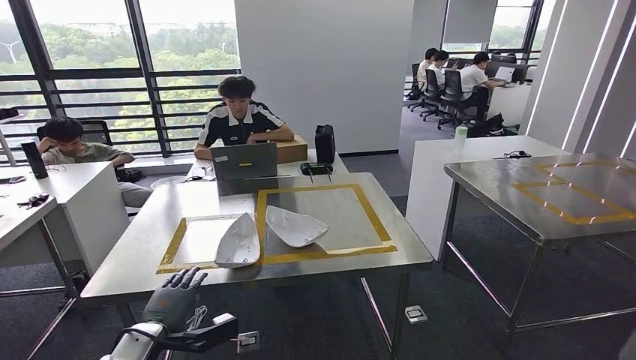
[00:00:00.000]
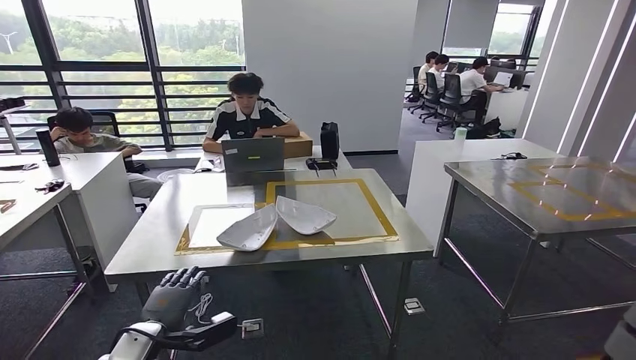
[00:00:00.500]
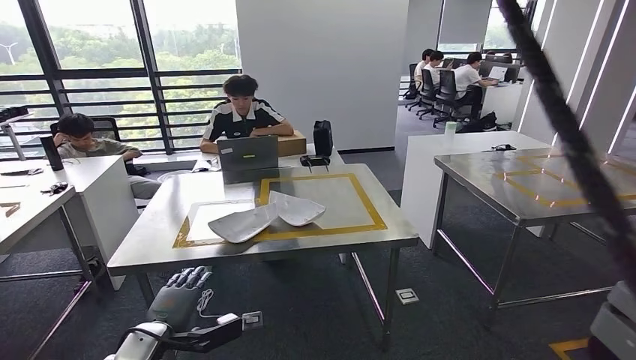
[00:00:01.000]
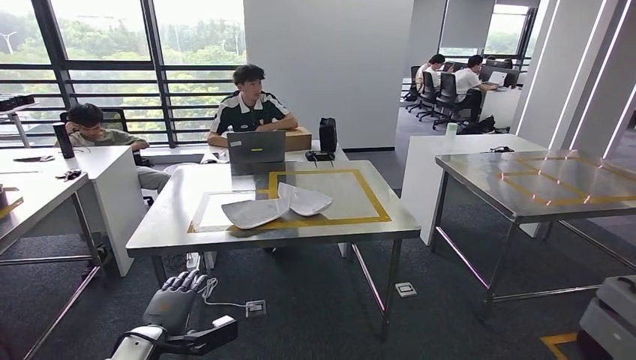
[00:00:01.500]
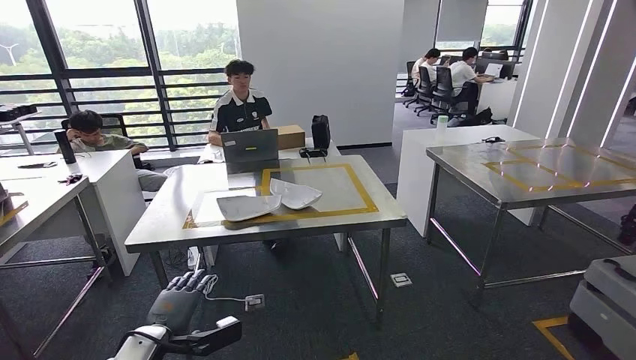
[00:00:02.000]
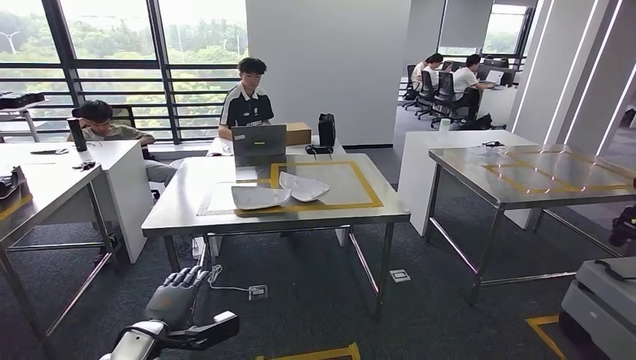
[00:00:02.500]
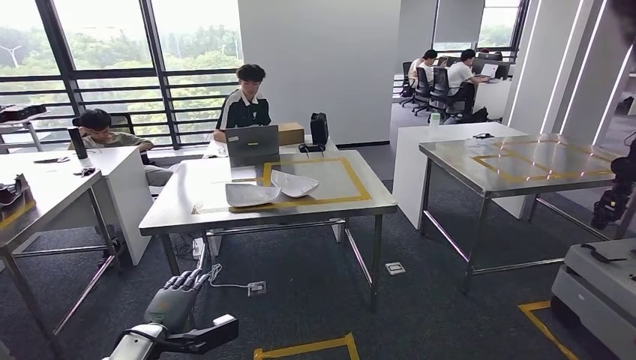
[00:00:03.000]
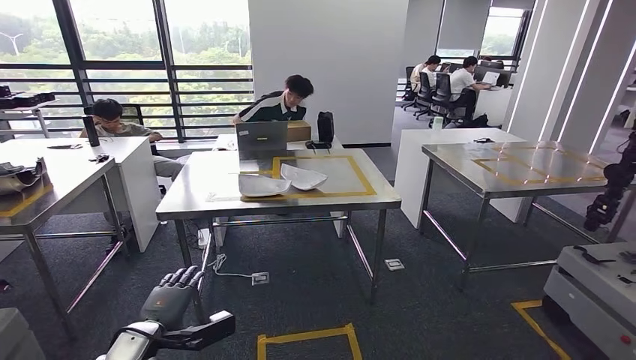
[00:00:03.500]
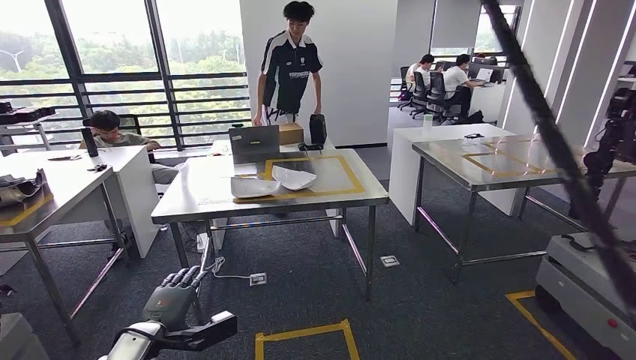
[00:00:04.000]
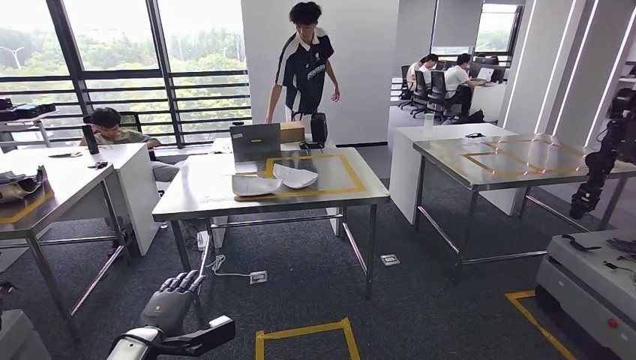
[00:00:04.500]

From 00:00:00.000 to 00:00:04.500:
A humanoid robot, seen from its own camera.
Step, from 00:00:00.000 to 00:00:04.500: Move to the initial position at the workbench.
